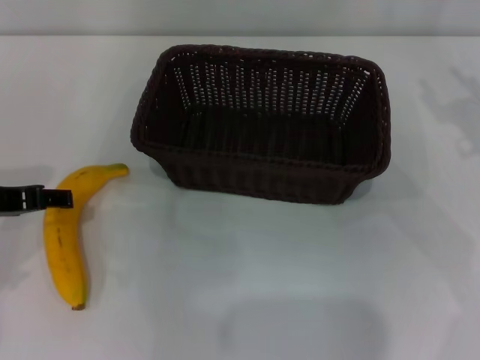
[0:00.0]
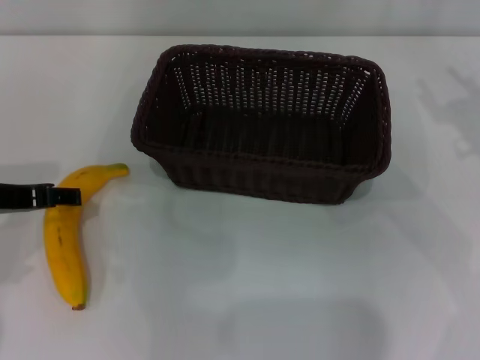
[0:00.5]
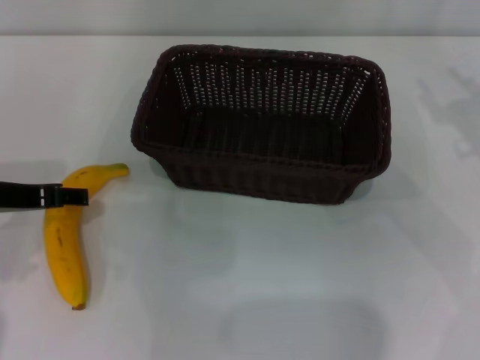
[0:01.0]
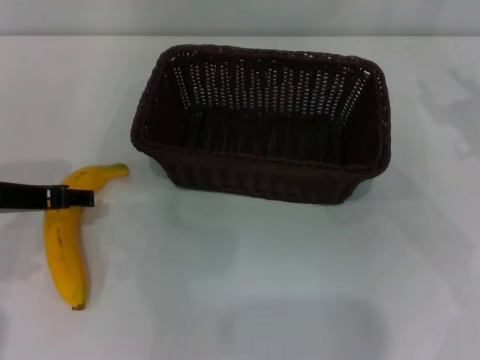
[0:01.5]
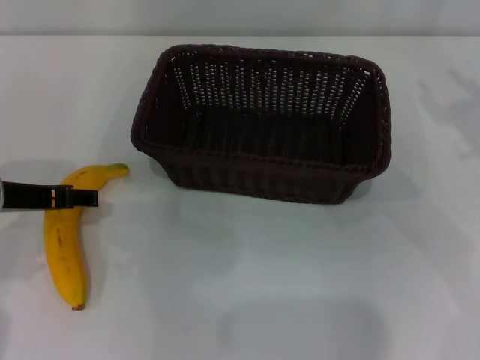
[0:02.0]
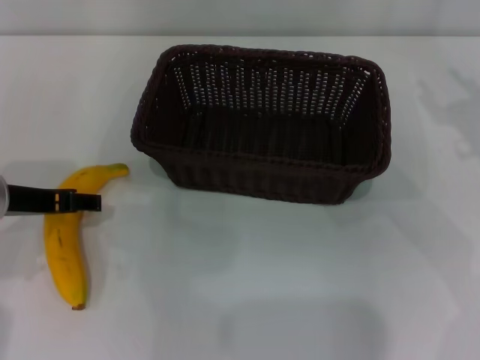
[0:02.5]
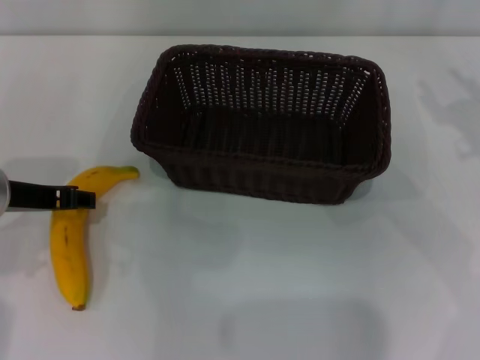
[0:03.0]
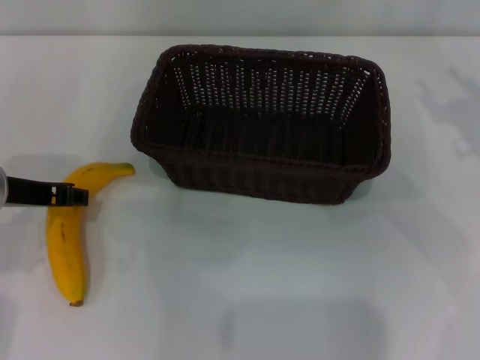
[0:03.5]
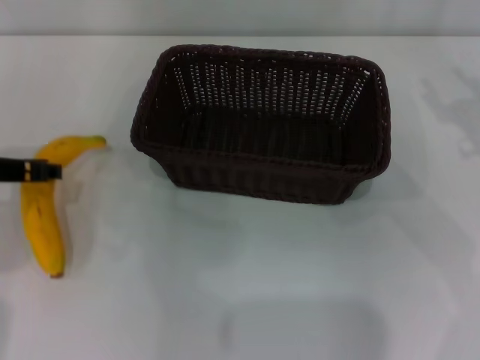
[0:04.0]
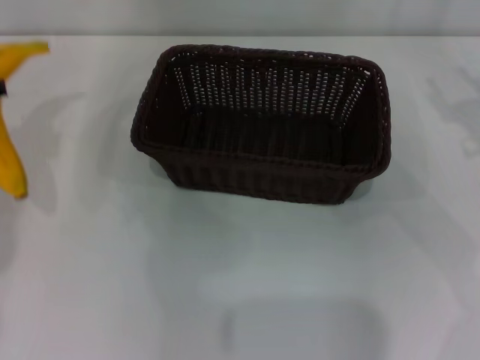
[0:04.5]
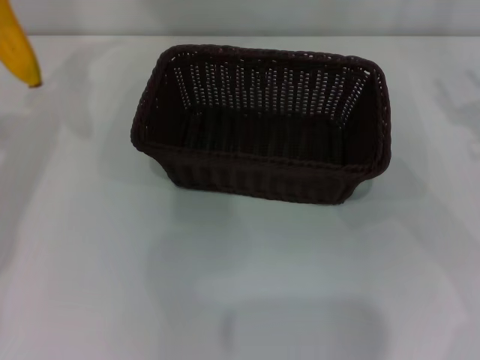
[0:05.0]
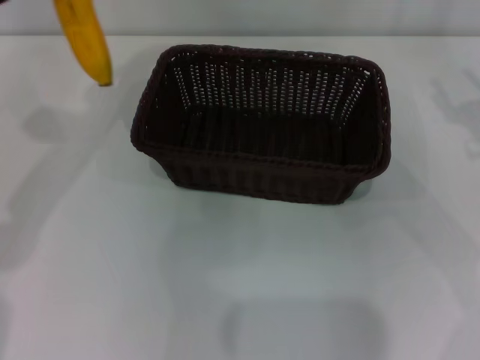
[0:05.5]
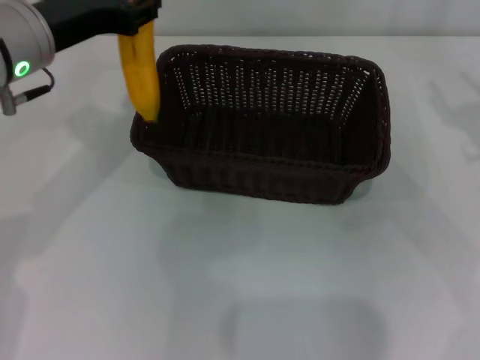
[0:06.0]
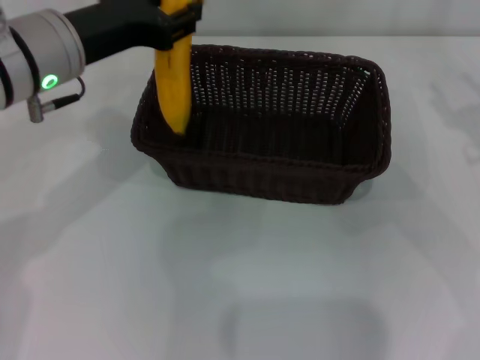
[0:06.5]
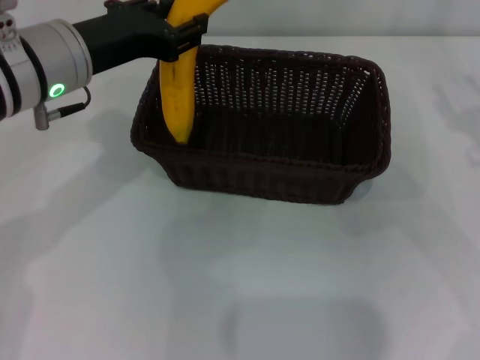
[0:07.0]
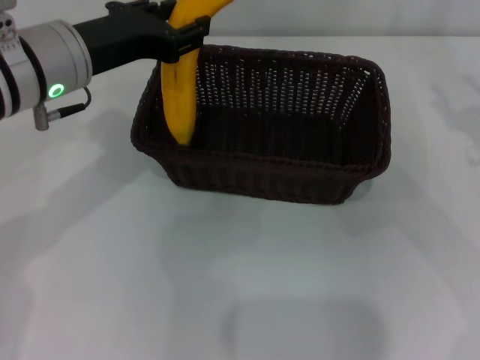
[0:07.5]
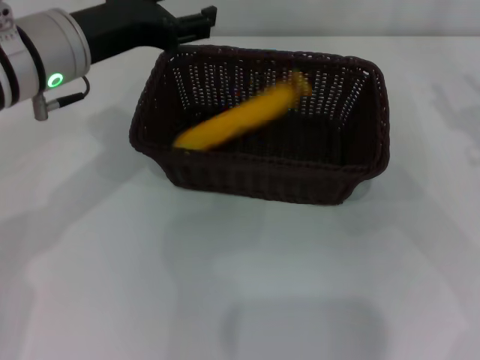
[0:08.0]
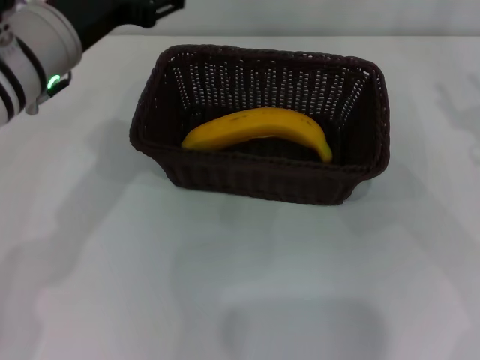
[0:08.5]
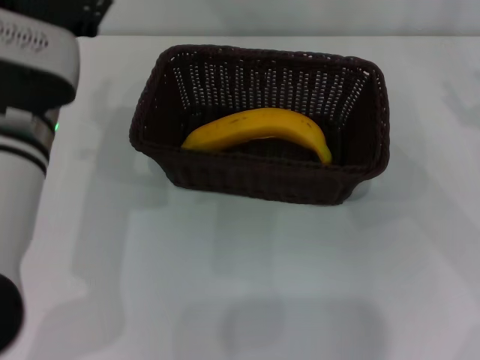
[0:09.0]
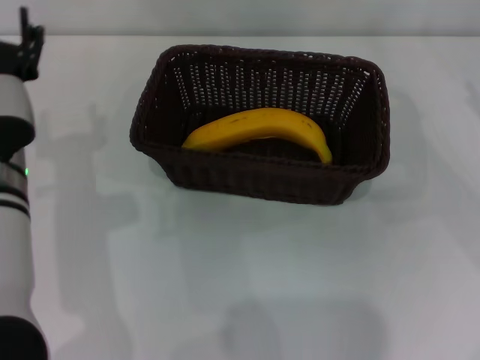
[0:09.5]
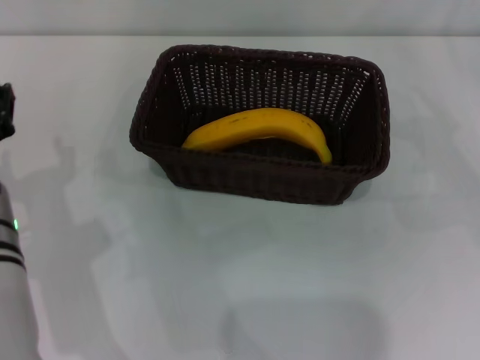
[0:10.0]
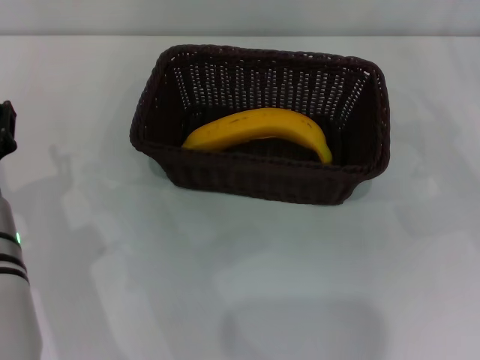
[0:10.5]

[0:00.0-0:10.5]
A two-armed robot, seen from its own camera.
Step, 0:00.0 to 0:04.0: Pick up the banana with the left gripper.
Step, 0:04.5 to 0:07.5: Place the banana into the dark basket with the left gripper.
0:00.0 to 0:02.0: There are only small adjustments of the grippers.
0:02.0 to 0:04.0: The left gripper closes up.
0:04.0 to 0:06.5: The left gripper travels to the right by some 10 cm.
0:06.5 to 0:08.5: The left gripper opens up.
0:08.5 to 0:10.5: The left gripper is displaced backward and downward by about 15 cm.
